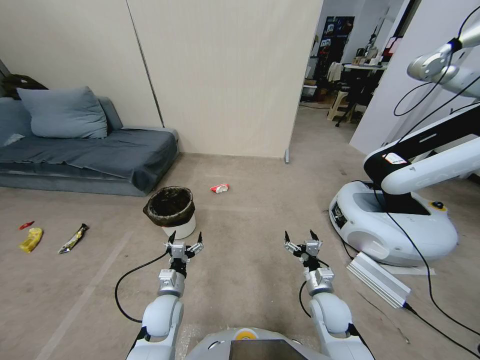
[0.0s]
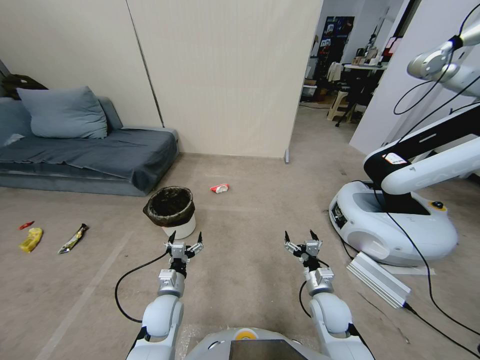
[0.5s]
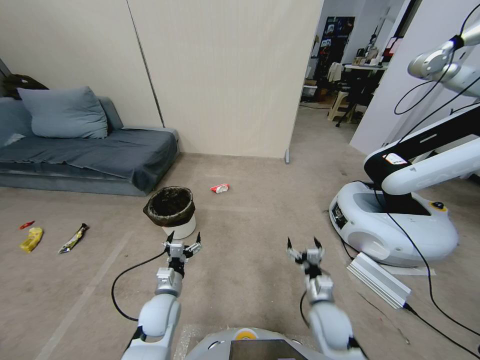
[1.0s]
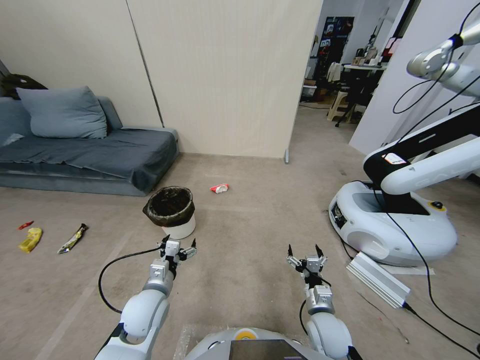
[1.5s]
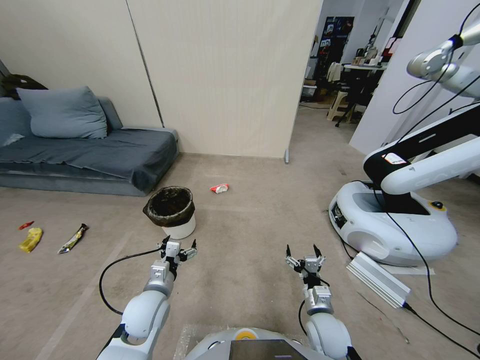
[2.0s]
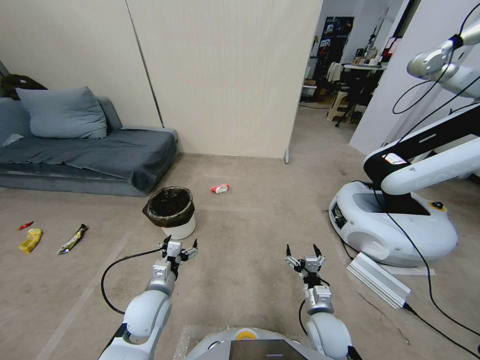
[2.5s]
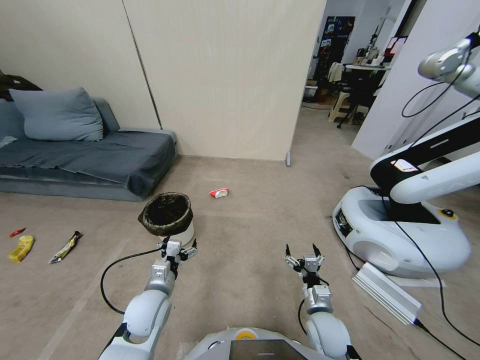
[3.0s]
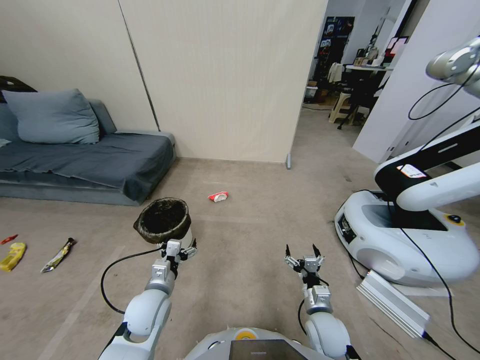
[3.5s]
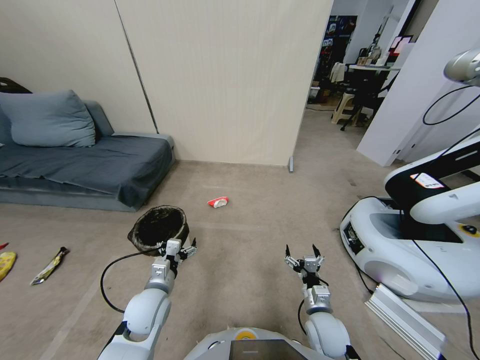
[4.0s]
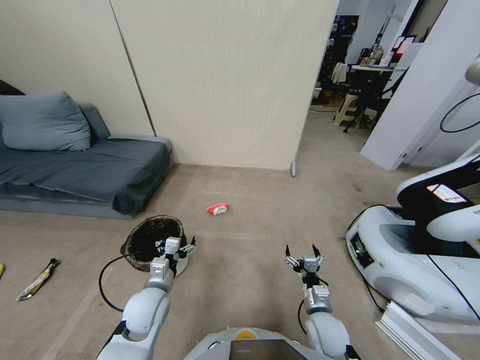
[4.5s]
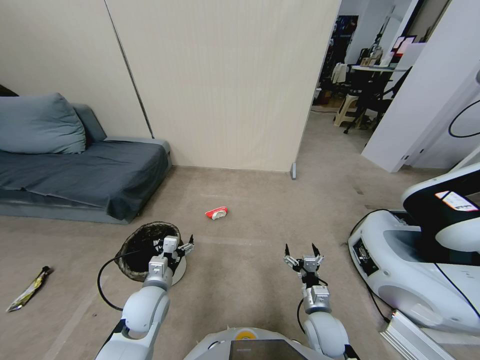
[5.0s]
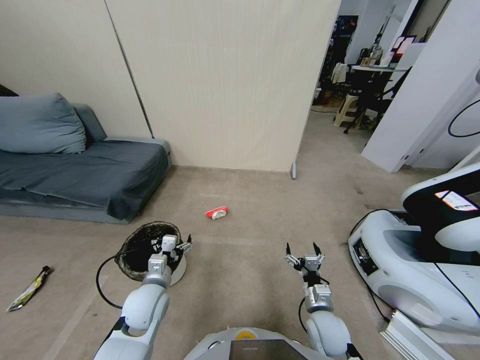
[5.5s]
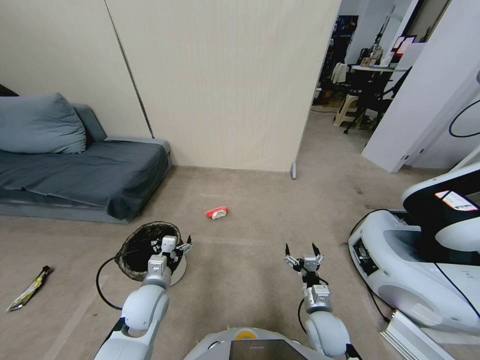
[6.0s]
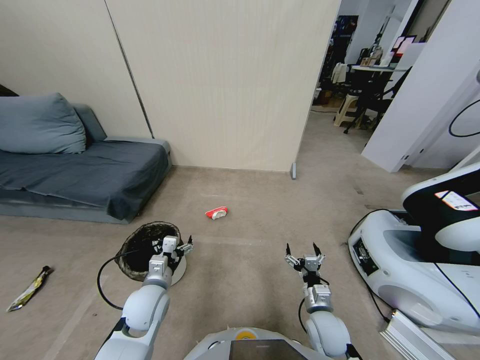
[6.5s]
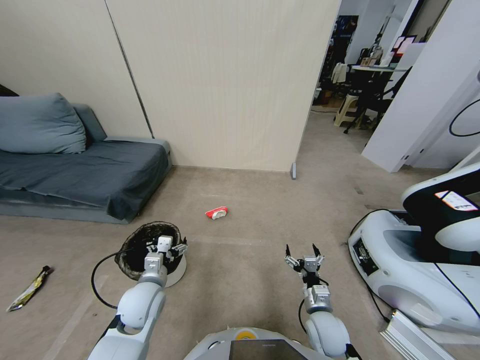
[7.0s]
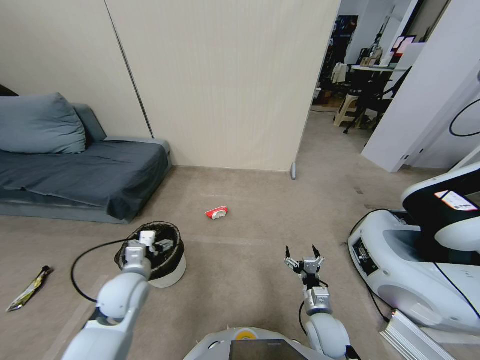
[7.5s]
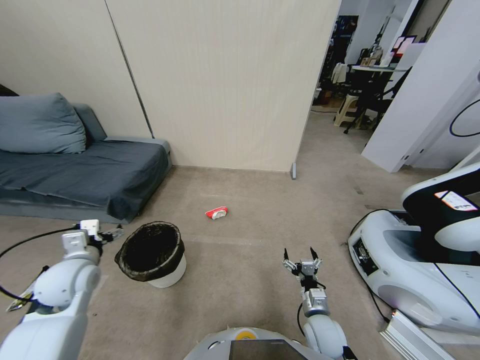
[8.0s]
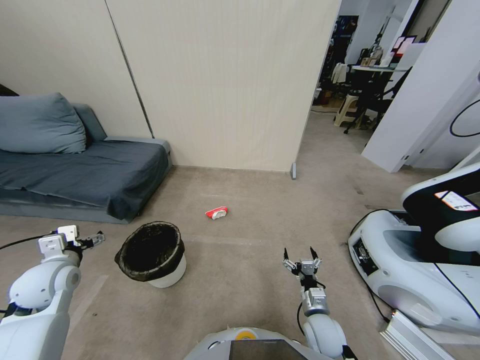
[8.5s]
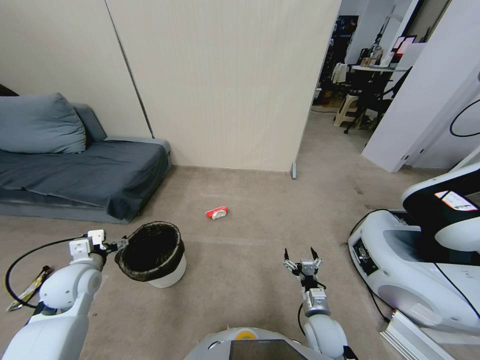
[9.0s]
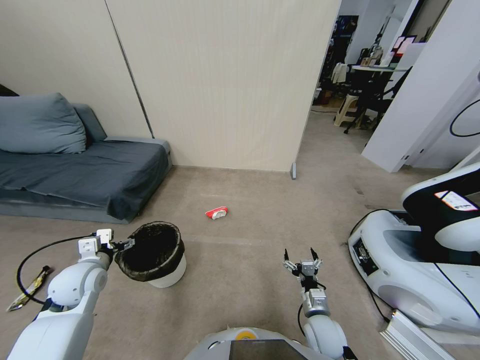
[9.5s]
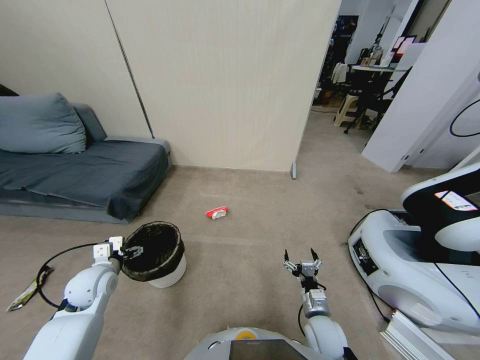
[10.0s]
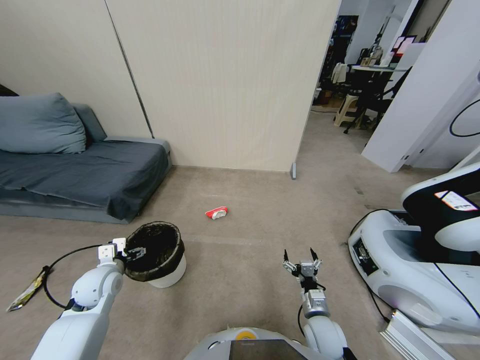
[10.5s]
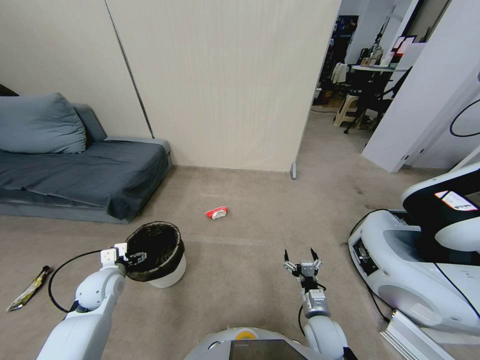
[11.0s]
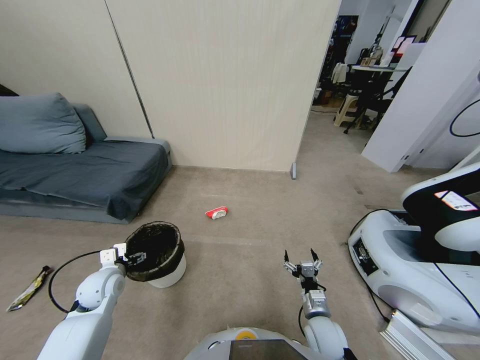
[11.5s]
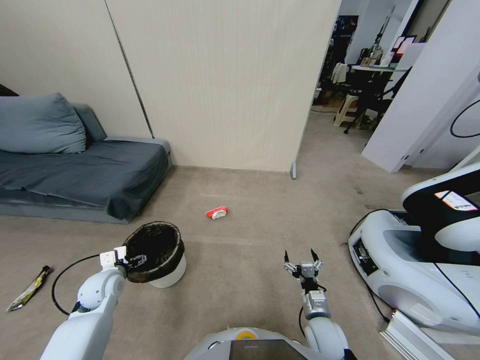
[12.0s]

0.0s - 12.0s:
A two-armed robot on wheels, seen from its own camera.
Task of the whole recording: Pick up the trash bin, then pick up the garbage from the floor and place it into the trash bin.
6.0s - 8.0s: The left gripper goes roughly 20 cm to the left and upward.
8.0s - 10.0s: The left gripper is displaced downward by some 10 cm.
10.0s - 12.0s: The grippers stay close to where they were, moving slightly.

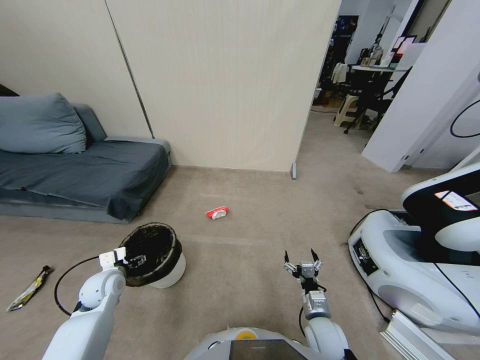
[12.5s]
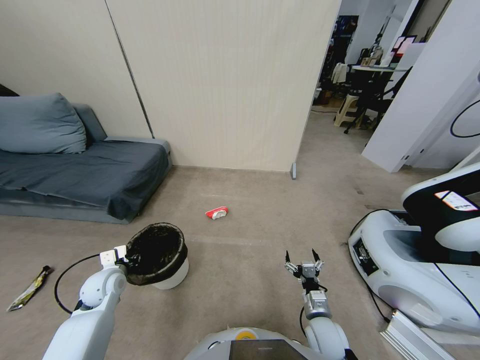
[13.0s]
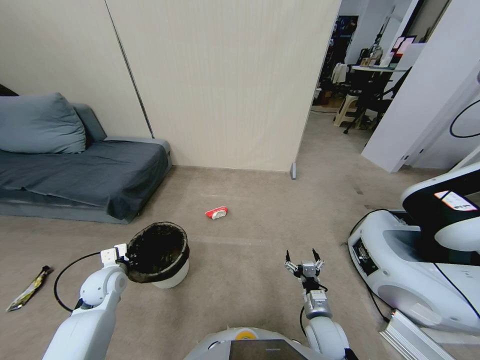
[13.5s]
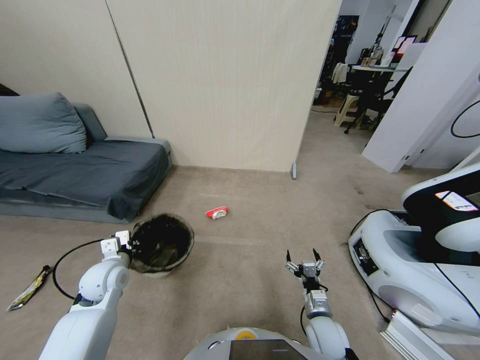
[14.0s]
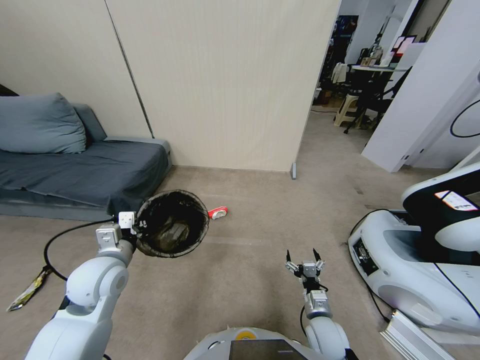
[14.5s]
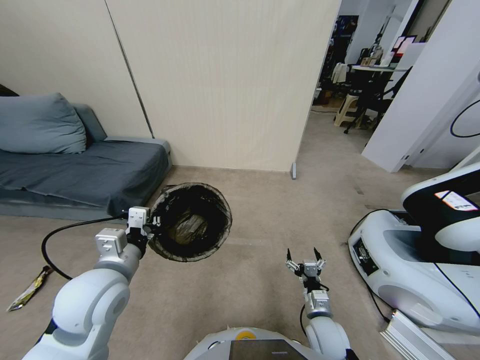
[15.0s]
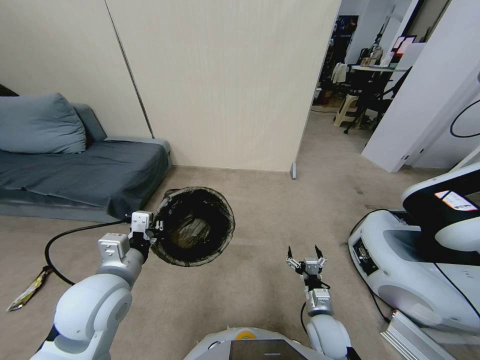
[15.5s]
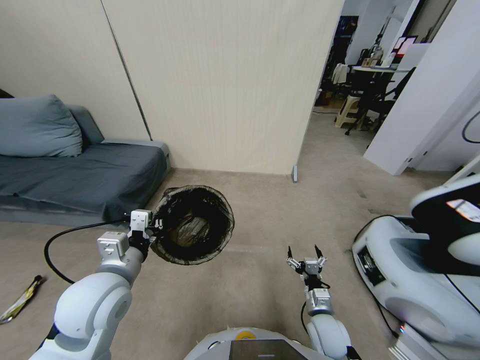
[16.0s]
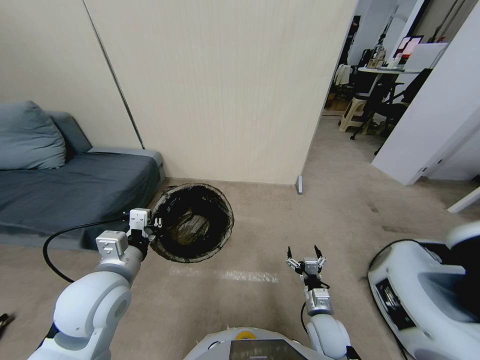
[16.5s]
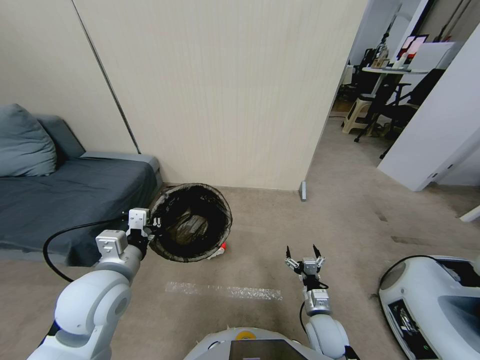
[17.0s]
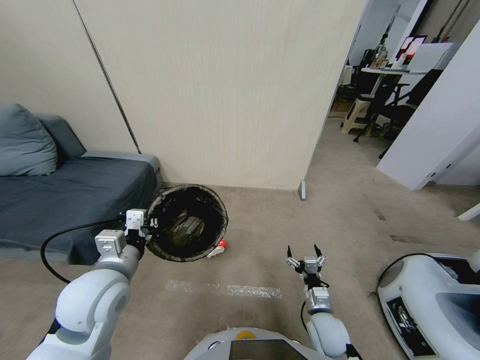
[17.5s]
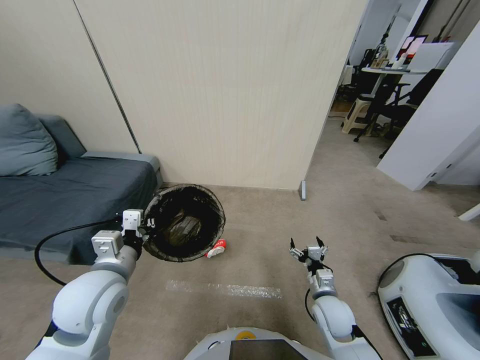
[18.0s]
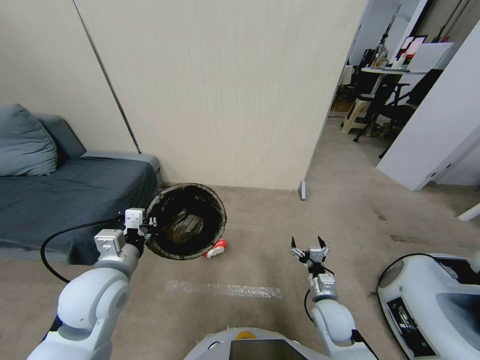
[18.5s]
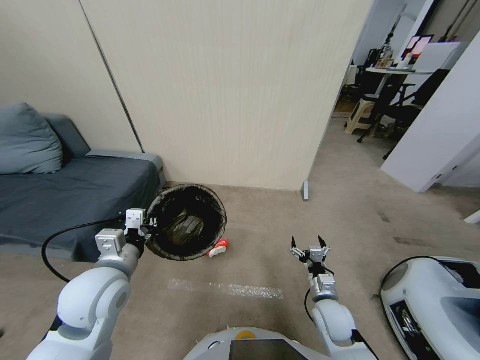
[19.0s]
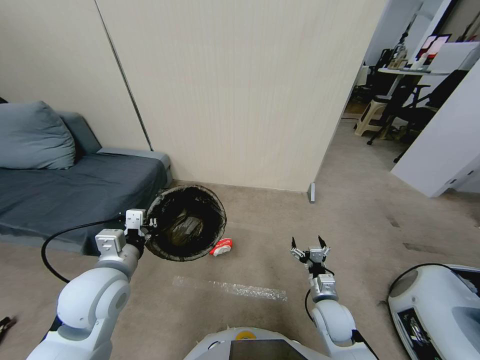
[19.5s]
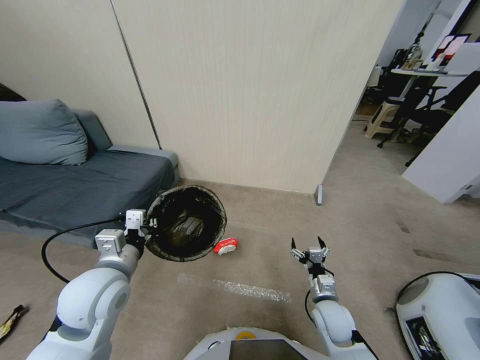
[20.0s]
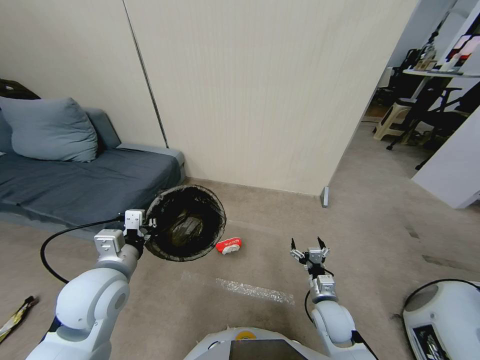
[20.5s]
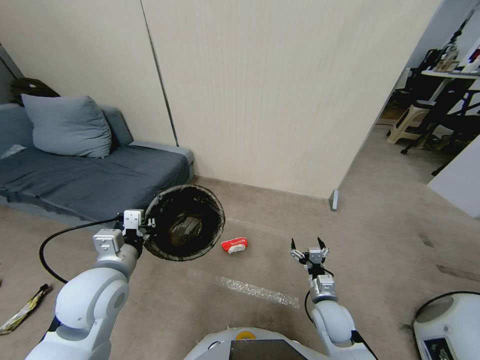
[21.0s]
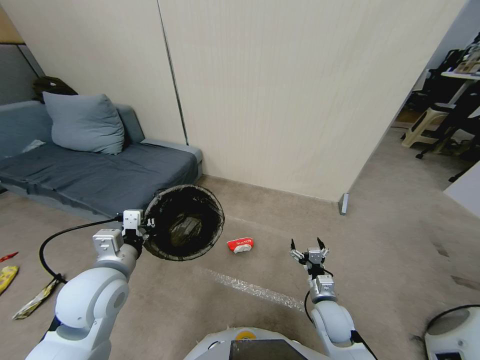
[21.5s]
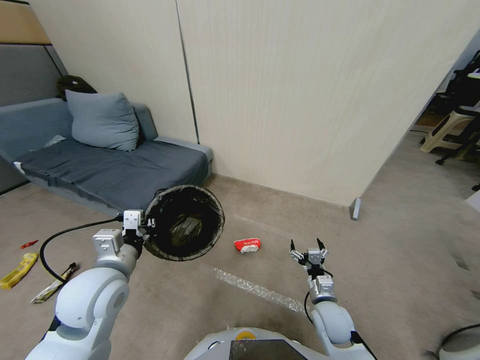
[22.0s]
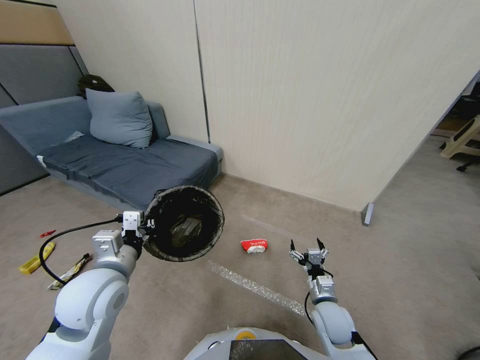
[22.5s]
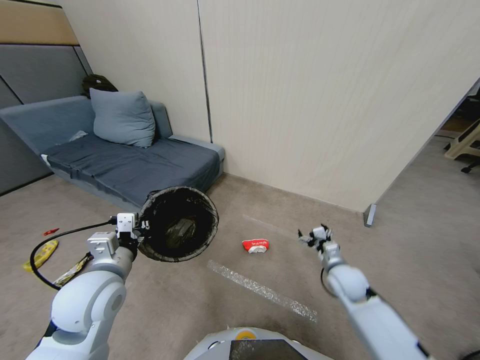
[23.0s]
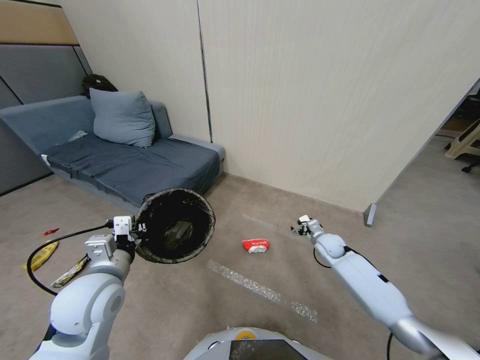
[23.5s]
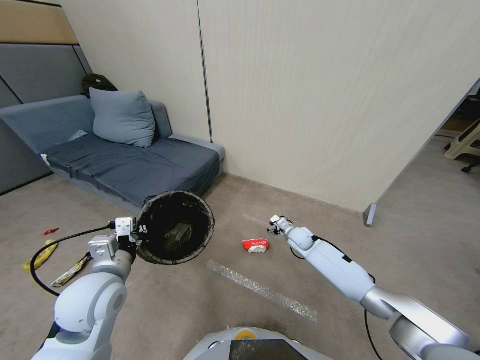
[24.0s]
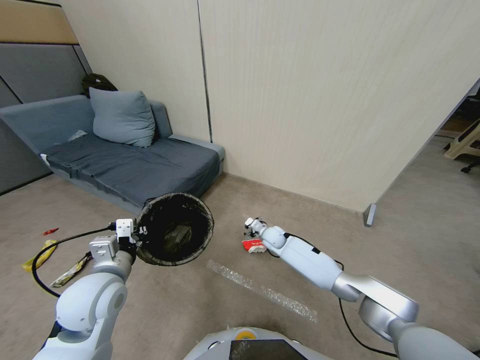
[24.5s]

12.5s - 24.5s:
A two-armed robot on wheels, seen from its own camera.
Task of the whole recording: Pick up the trash bin, then pick up the garbage from the floor and place it into the trash bin.
12.5s - 14.5s: The left gripper moves upward and to the right, some 20 cm, and closes its fingers.
14.5s - 16.5s: The left gripper shifts by some 5 cm.
22.5s - 24.5s: The right gripper goes about 30 cm forward and to the left.

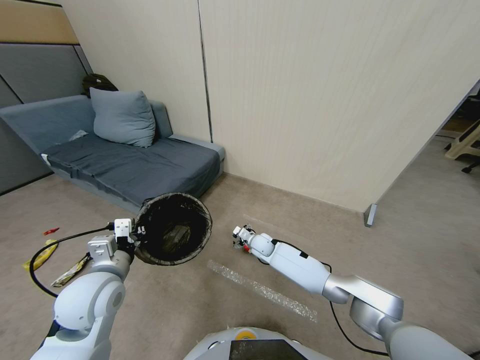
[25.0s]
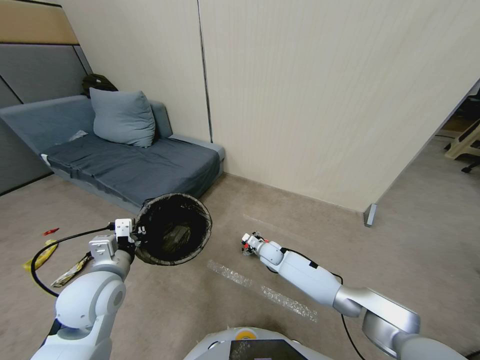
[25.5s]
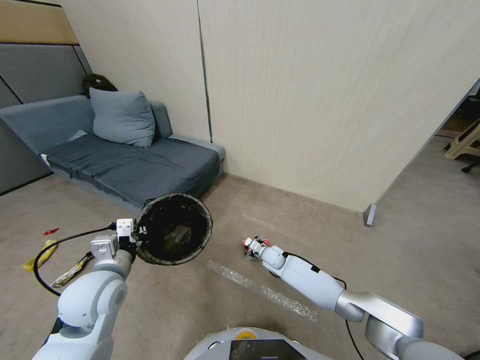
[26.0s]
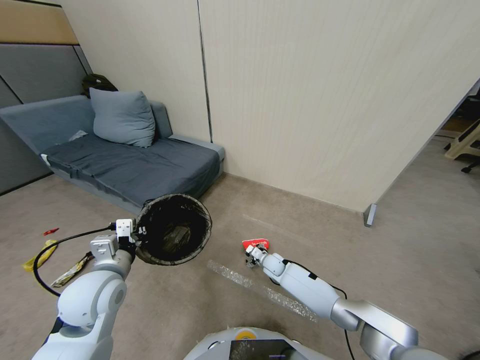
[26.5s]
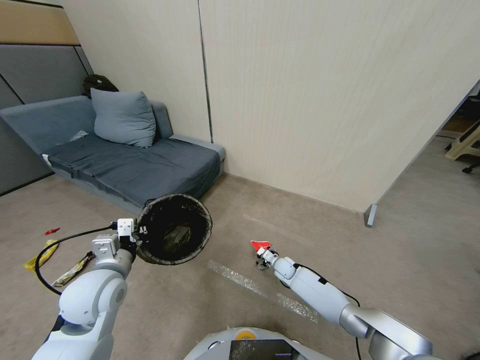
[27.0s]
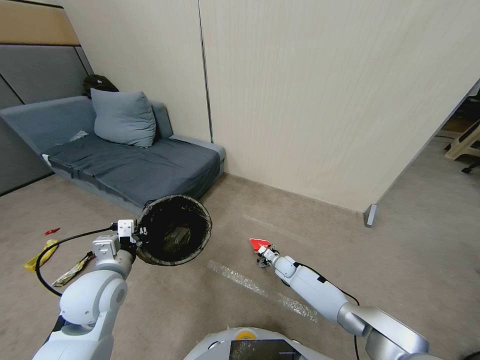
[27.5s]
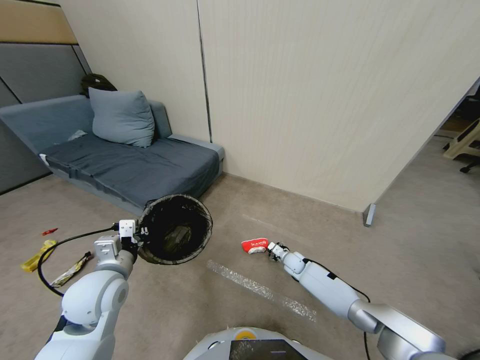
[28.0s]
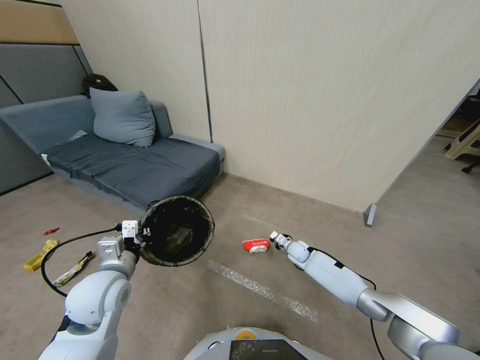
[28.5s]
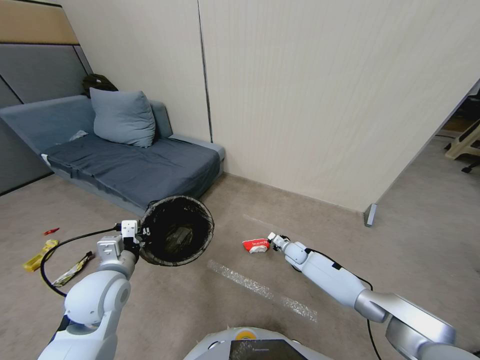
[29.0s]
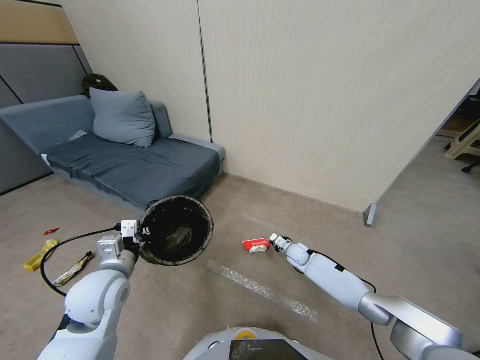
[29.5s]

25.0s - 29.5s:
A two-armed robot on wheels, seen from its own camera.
Task of the whole recording: Pick up the trash bin, then pick up the garbage from the floor and place it into the trash bin.
25.0s - 27.0s: The right gripper moves to the right and downward, some 15 cm.
27.0s - 29.5s: The right gripper goes about 5 cm upward, and closes.
